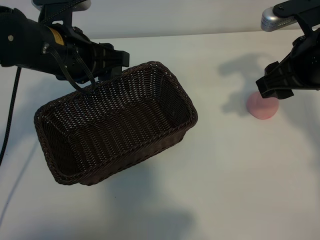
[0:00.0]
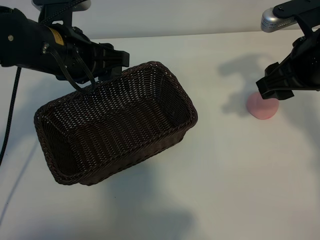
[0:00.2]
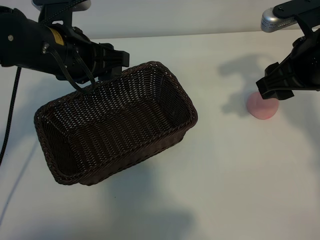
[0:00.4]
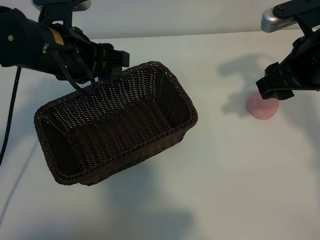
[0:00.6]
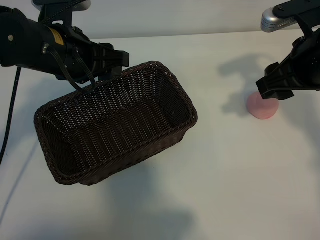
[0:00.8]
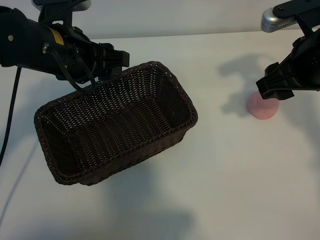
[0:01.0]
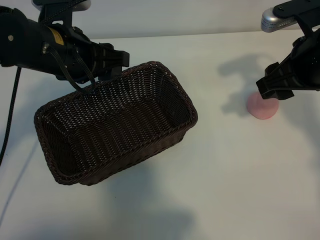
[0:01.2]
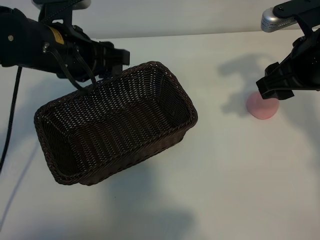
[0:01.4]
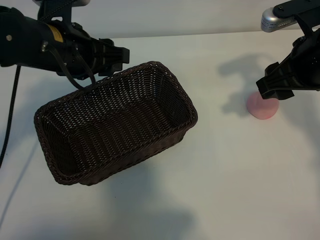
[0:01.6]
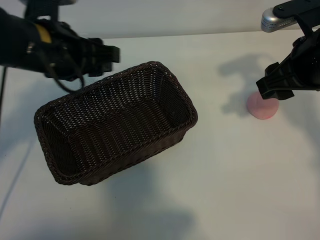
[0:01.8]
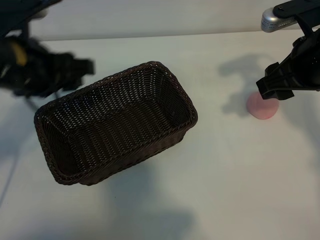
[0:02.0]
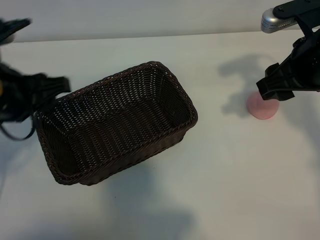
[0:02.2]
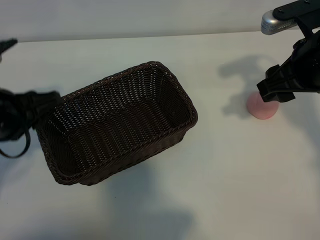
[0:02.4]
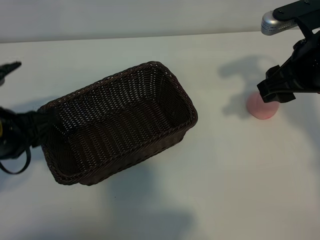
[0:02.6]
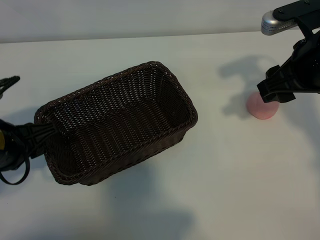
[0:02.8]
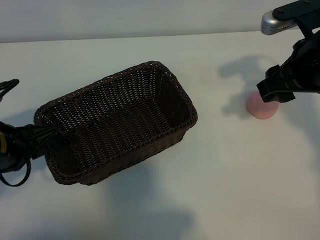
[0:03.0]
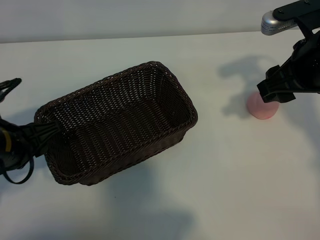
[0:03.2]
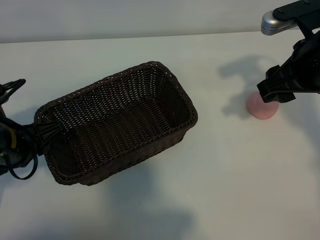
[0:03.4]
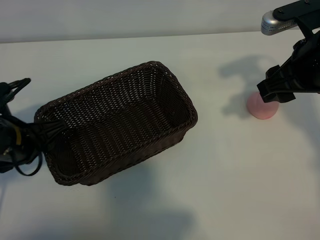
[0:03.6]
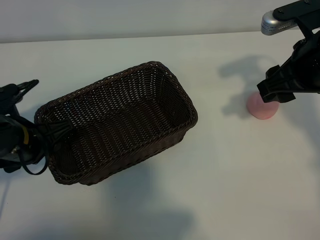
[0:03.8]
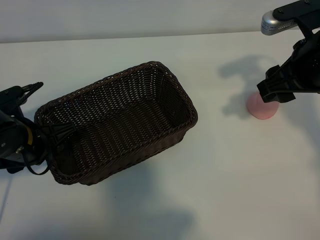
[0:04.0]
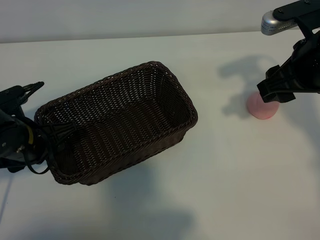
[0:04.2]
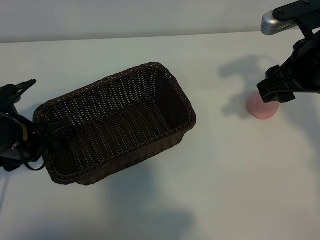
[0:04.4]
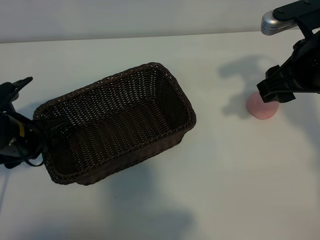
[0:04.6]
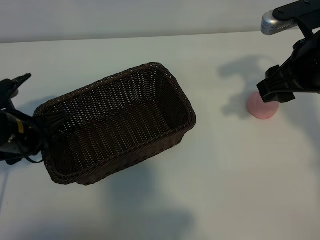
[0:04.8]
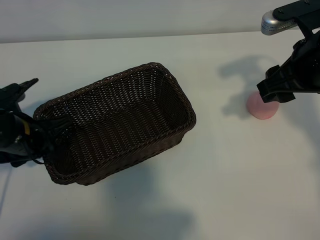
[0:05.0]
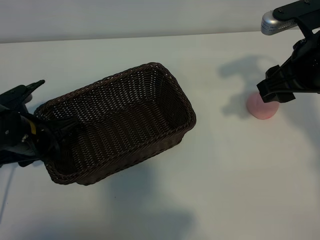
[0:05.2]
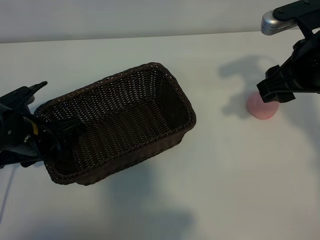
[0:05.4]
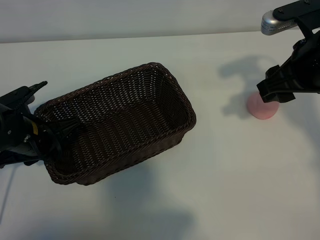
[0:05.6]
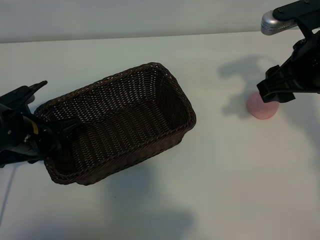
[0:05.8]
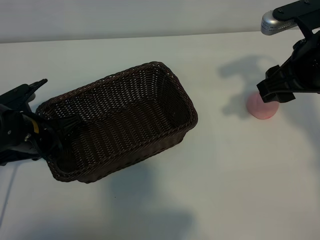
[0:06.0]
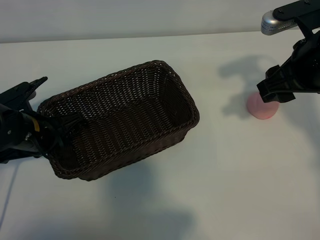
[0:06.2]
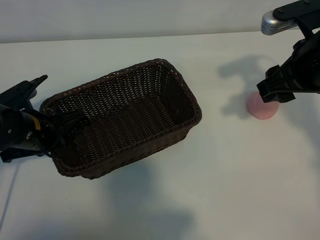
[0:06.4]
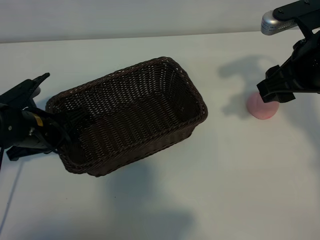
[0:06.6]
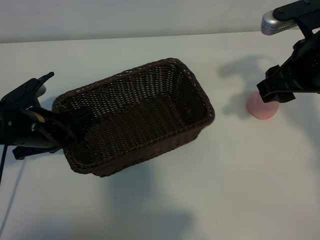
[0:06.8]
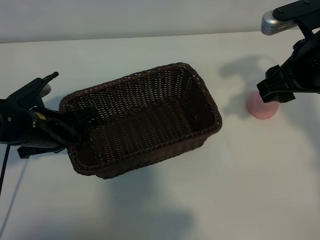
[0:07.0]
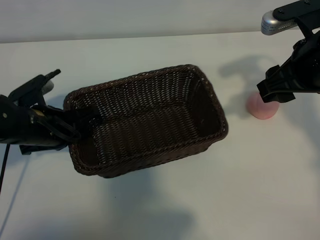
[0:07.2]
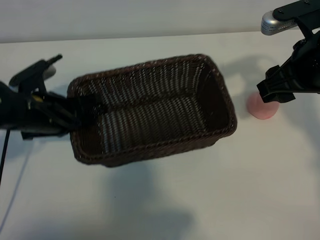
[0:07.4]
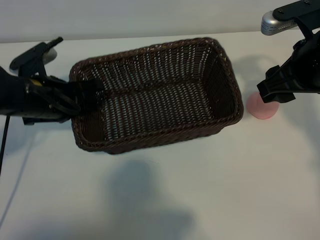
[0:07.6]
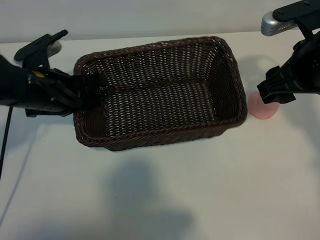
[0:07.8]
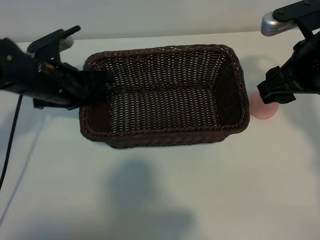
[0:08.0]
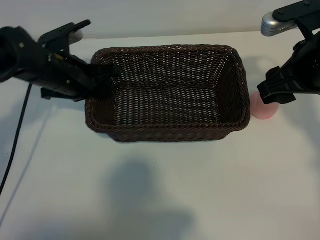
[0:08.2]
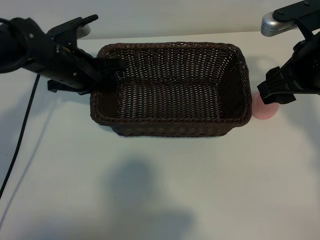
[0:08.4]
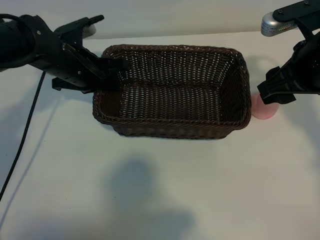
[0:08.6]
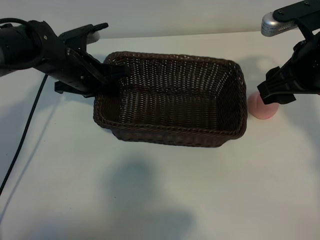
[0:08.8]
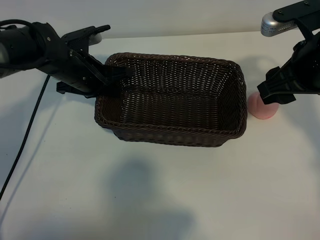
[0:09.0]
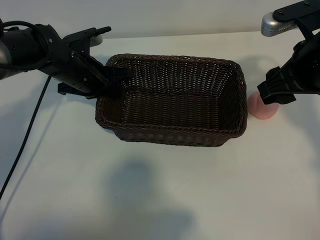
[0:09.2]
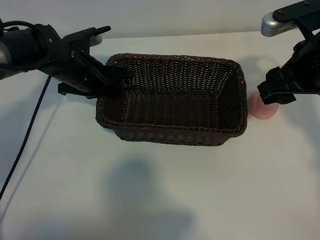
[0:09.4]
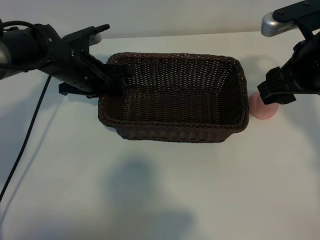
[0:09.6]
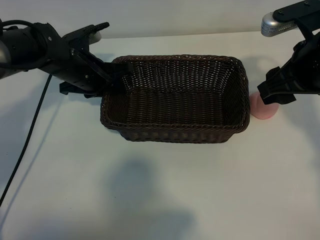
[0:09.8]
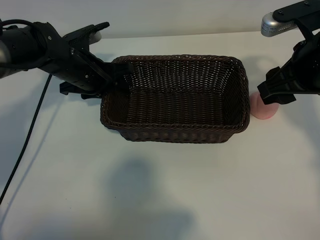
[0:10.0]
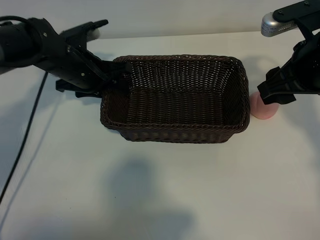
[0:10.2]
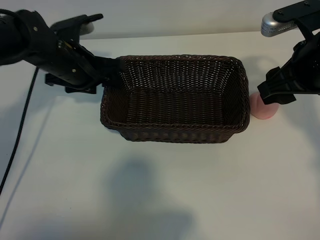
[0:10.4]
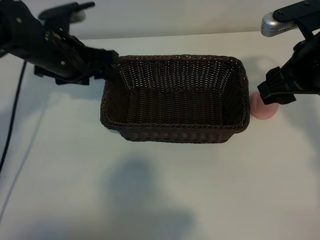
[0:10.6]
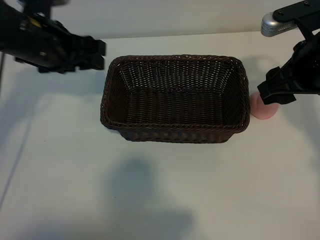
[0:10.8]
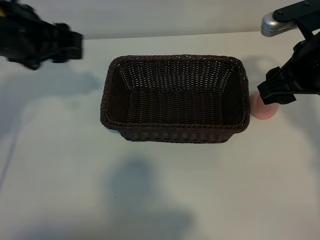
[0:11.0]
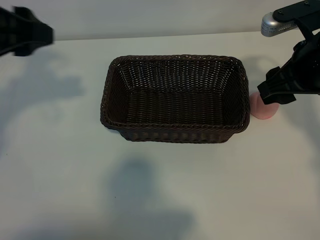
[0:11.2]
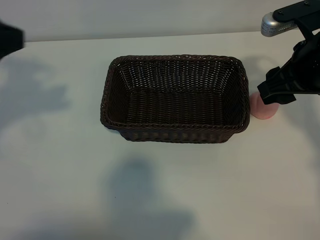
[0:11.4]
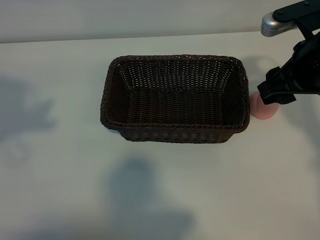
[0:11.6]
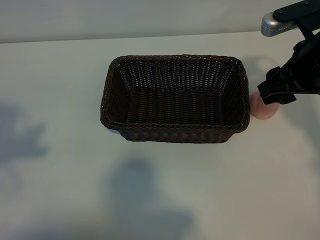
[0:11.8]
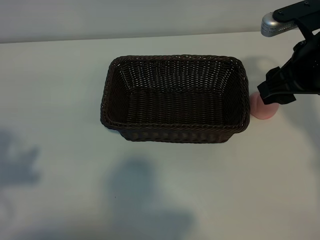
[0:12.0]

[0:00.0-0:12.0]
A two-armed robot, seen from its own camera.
Task of the whole recording: pick up the peach and put it into the basket.
Step, 0:01.4 to 0:05.8: Grasp the basket with left gripper.
Step, 0:06.2 to 0:10.4: Place the basket in the center of view with left gripper.

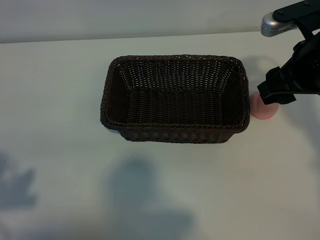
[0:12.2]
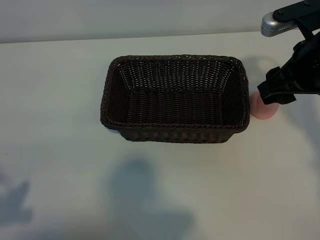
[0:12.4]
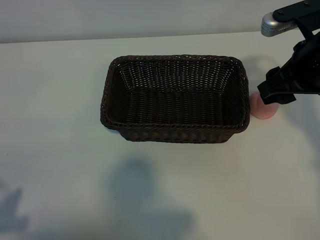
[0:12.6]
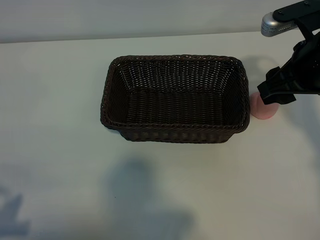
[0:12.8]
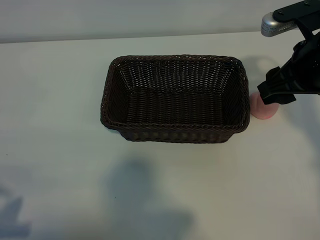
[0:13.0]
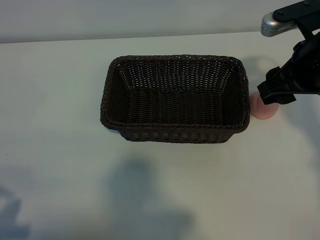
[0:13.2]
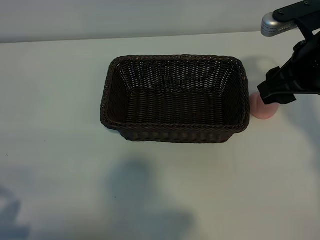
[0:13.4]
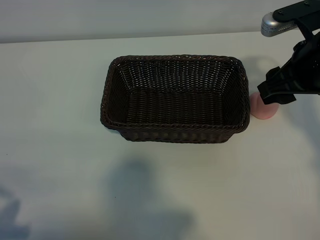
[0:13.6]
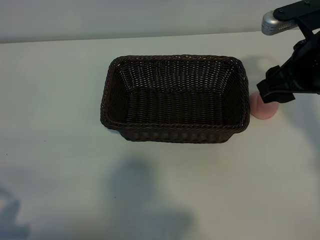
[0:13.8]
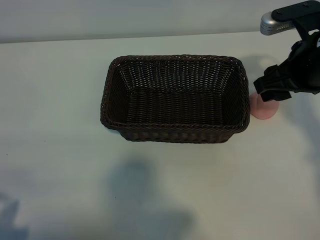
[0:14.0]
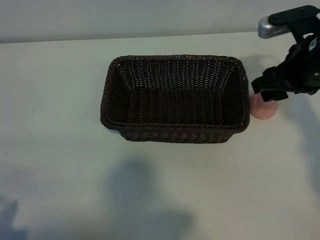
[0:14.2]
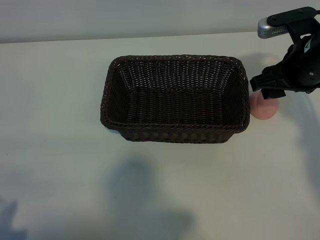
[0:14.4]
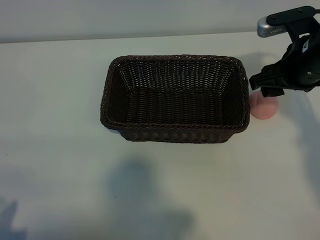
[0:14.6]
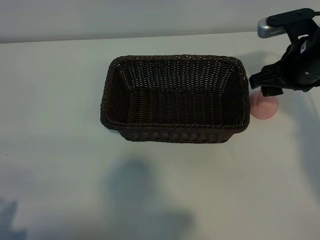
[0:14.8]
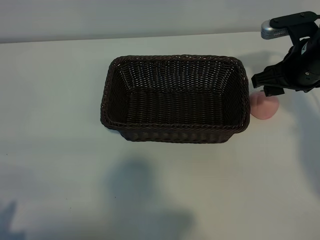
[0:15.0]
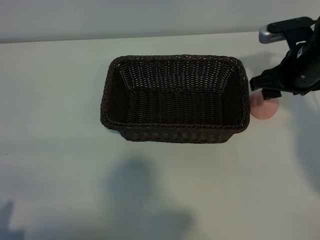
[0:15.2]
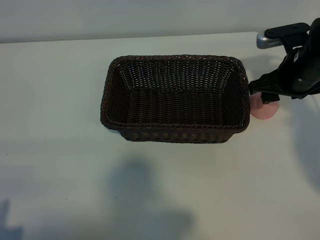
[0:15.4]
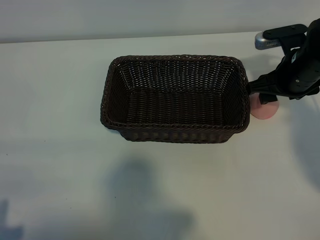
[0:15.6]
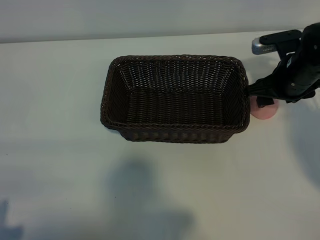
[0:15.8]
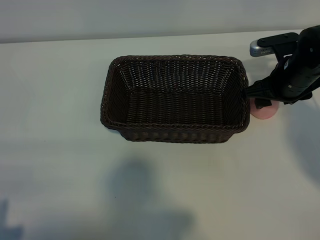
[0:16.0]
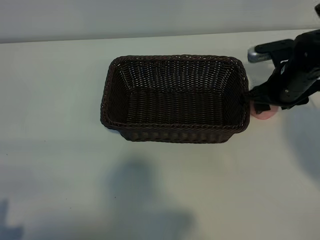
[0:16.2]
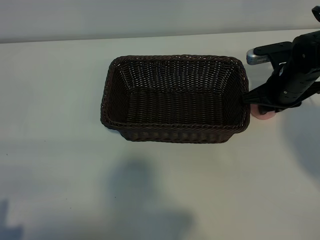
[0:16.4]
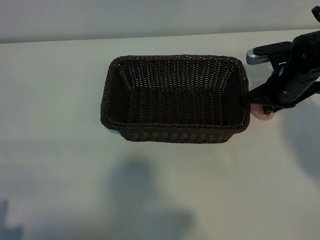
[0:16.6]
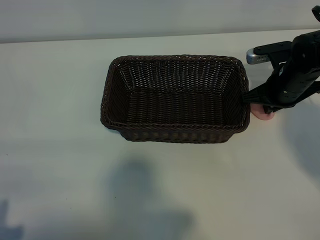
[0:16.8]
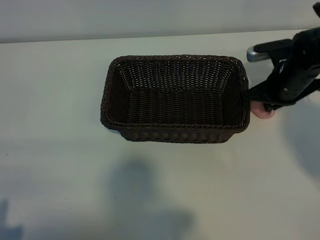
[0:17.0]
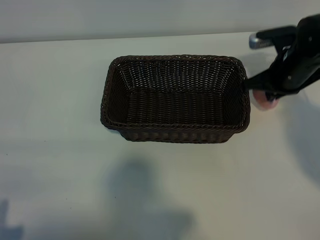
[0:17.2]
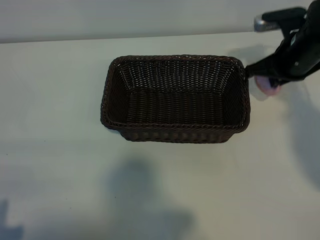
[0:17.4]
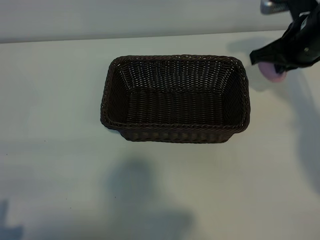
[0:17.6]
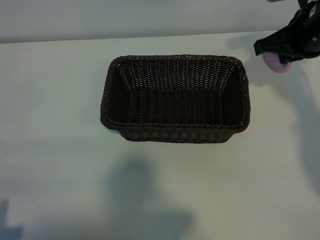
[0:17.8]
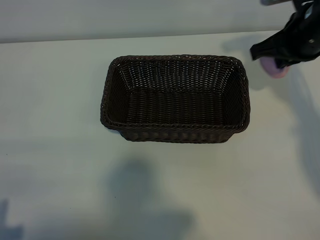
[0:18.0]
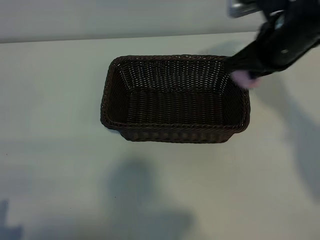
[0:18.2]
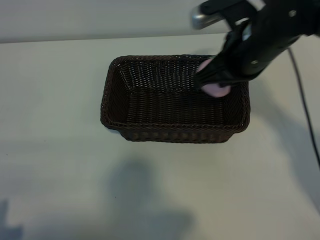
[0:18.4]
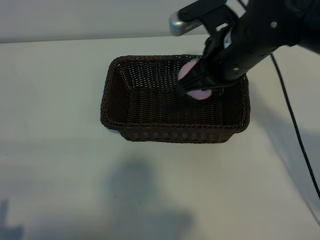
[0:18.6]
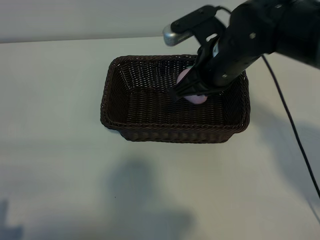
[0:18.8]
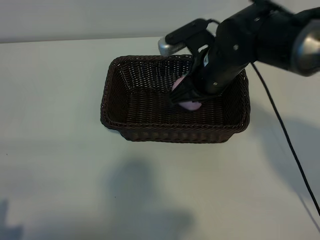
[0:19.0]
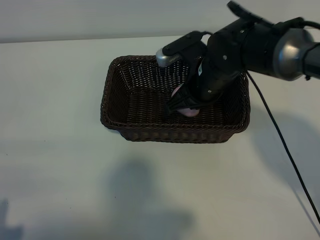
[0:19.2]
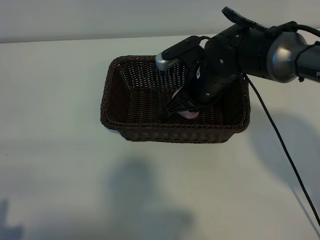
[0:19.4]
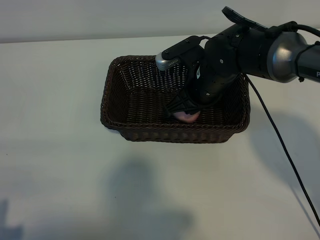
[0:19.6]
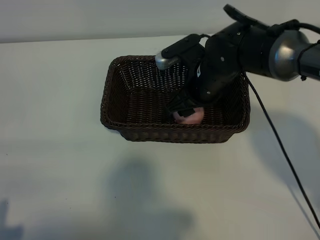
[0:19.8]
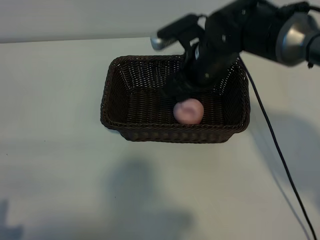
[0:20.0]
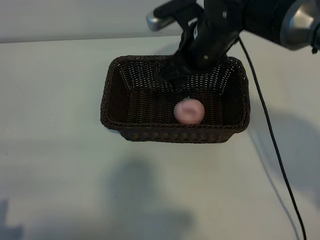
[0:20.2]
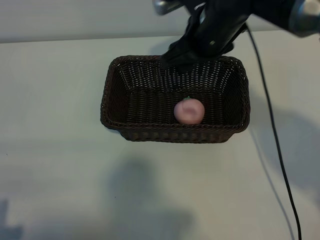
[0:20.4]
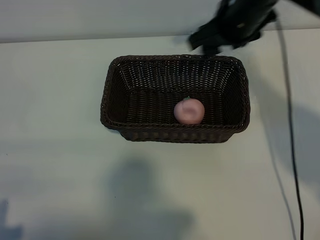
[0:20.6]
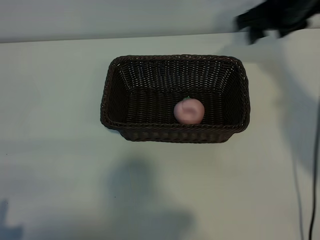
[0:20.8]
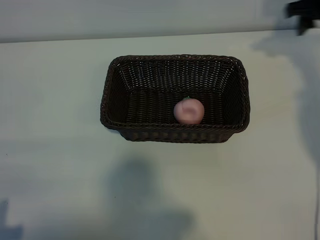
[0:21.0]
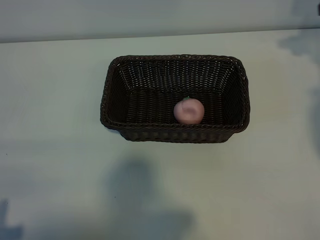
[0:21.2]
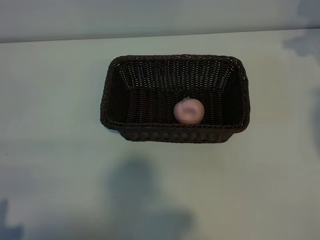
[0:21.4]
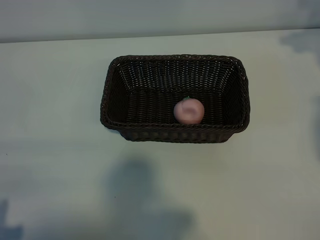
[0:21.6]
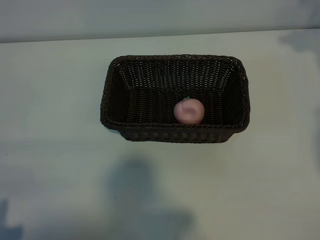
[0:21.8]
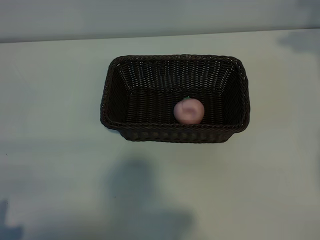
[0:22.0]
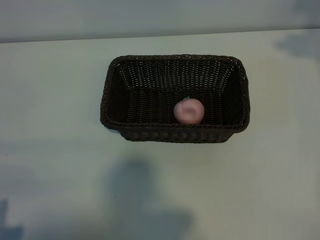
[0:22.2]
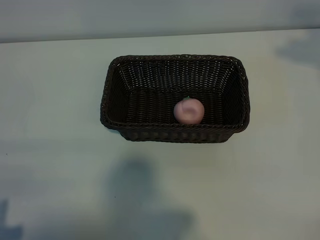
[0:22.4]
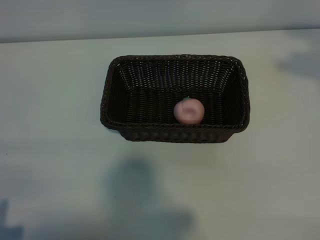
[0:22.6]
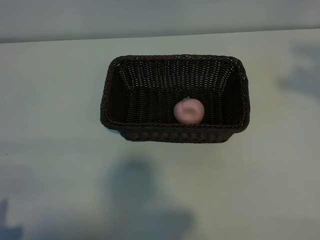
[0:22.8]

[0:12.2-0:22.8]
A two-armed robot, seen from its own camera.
Task of the whole recording: pick up the peach and put it into the basket.
Step, 0:12.2 to 0:16.6: Grasp the peach with right gripper.
Step, 0:17.0 to 0:19.8: Place the peach in the basket with right gripper.
